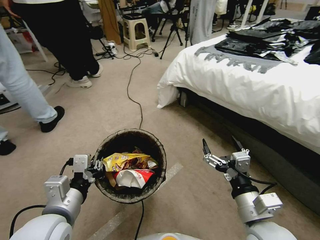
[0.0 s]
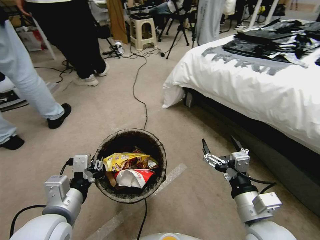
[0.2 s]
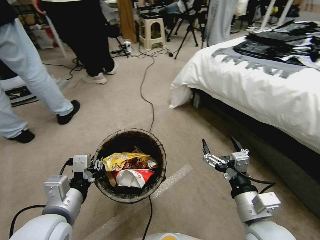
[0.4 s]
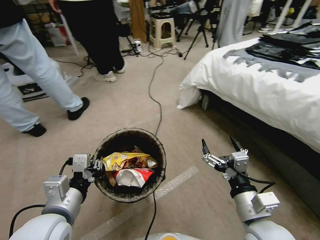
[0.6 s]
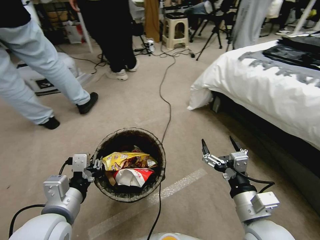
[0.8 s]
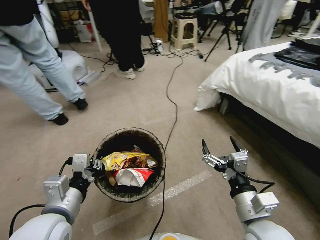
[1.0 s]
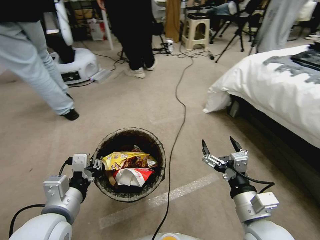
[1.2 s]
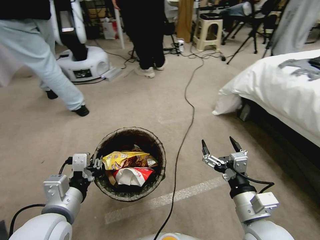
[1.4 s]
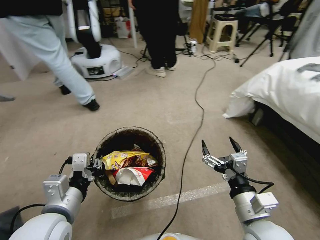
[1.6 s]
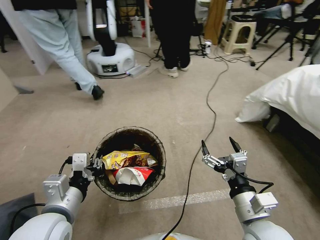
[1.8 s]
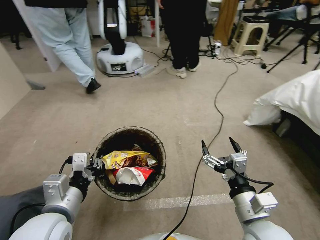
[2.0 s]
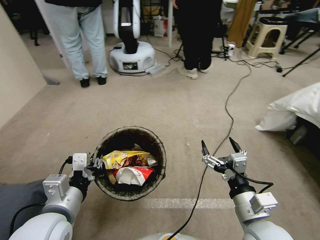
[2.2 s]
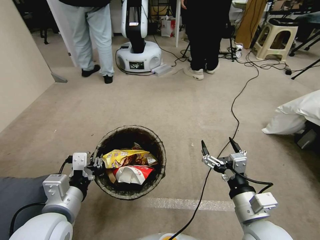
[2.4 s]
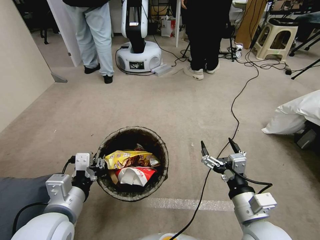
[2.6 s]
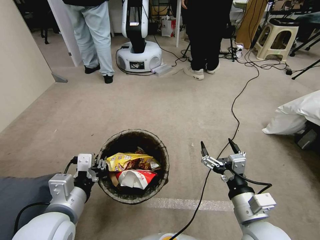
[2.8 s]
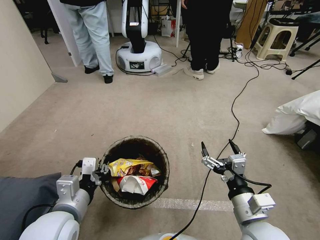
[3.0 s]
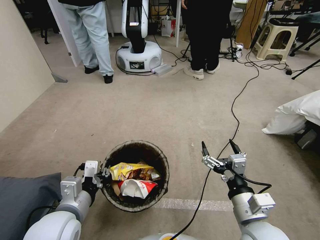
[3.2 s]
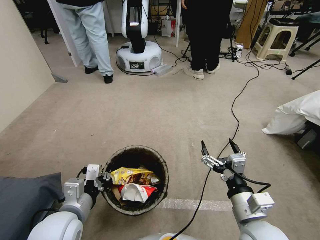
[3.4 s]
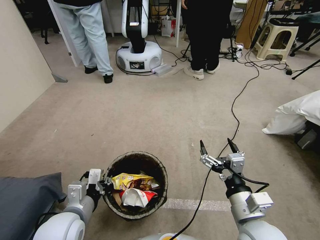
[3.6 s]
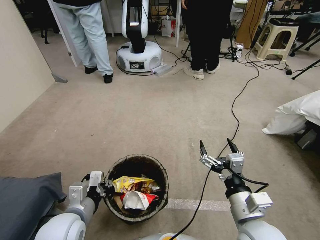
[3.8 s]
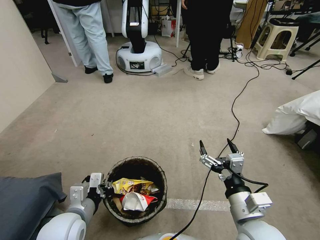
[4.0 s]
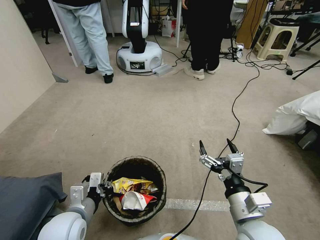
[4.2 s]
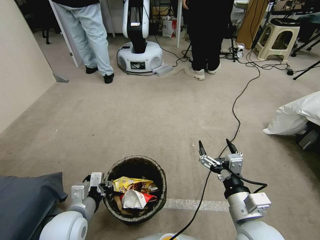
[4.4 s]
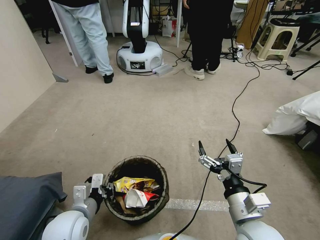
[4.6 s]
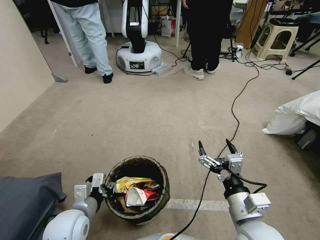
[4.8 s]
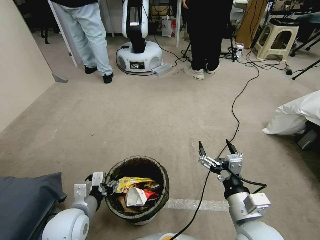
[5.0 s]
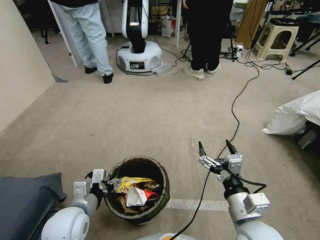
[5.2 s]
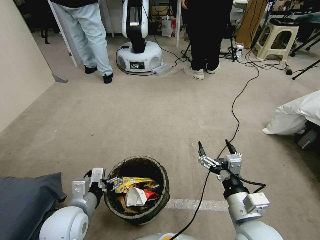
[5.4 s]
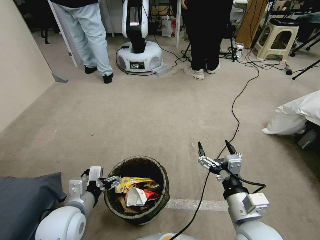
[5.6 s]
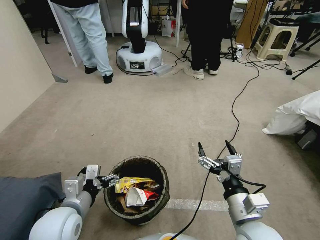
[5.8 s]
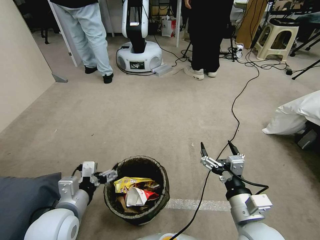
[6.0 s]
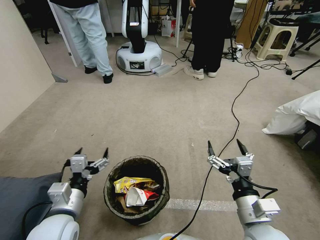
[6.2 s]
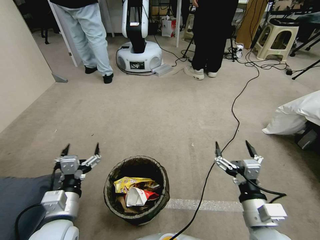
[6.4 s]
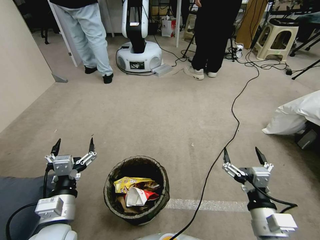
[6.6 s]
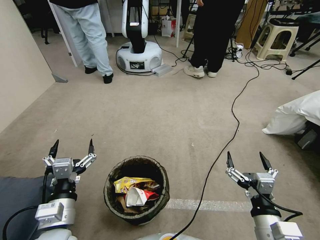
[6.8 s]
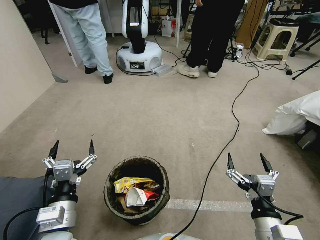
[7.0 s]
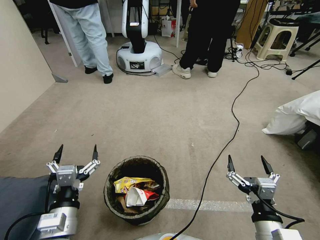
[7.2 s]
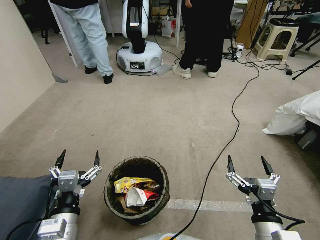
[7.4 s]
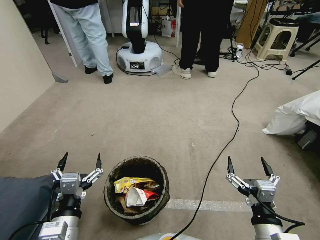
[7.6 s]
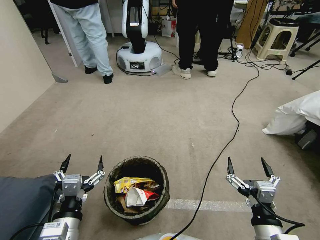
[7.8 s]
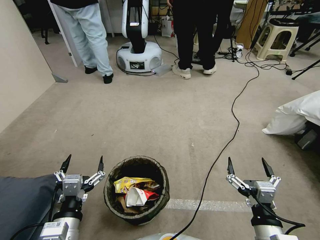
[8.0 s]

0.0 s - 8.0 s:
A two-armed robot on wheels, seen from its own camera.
Task of the whole recording: Pick up the trash bin, then pick up the garbage from the floor and place it into the trash bin.
3.2 s - 4.8 s: The left gripper heads downward, covering approximately 10 cm.
4.8 s - 6.4 s: The left gripper opens.
6.4 s - 8.0 s: Both grippers travel together backward, about 5 cm.
